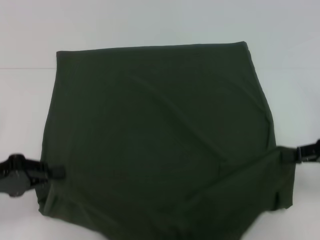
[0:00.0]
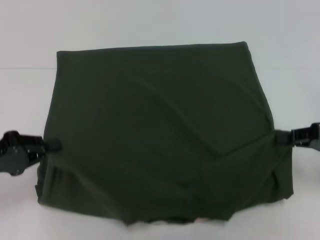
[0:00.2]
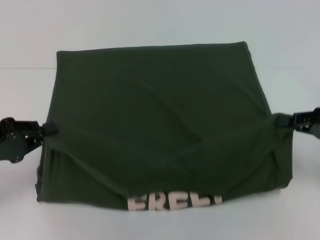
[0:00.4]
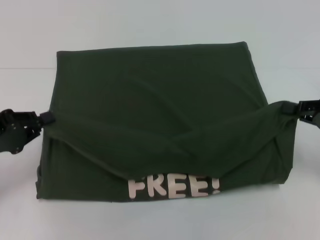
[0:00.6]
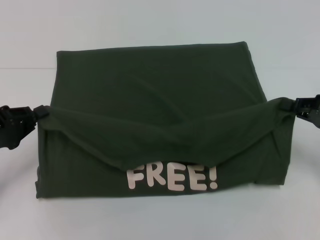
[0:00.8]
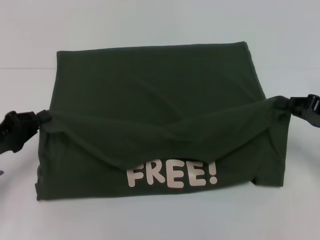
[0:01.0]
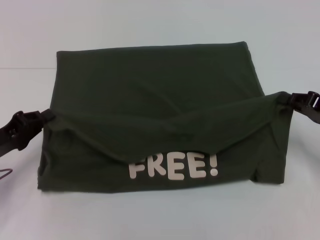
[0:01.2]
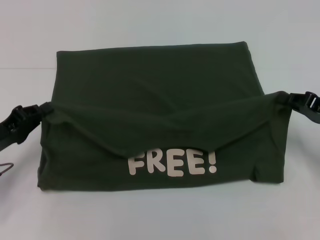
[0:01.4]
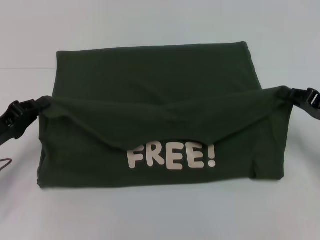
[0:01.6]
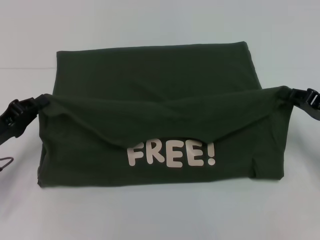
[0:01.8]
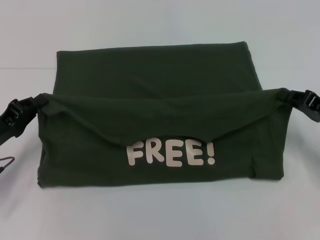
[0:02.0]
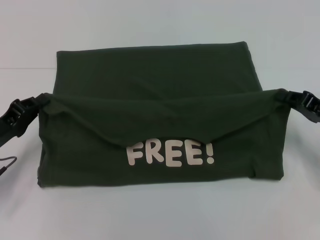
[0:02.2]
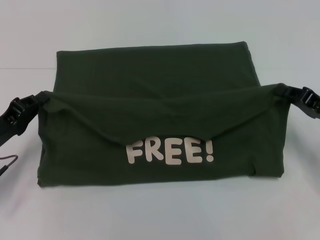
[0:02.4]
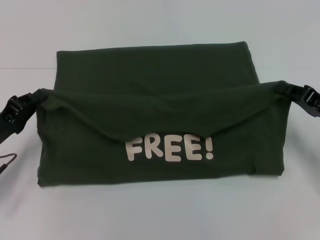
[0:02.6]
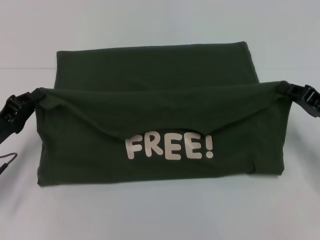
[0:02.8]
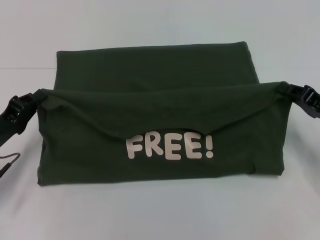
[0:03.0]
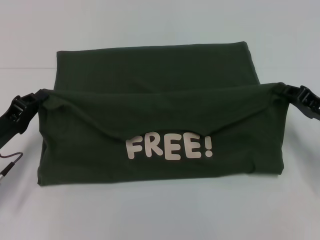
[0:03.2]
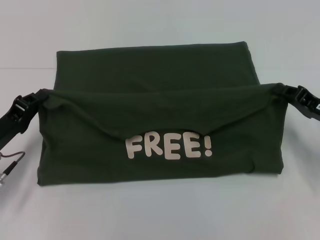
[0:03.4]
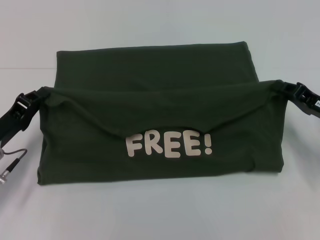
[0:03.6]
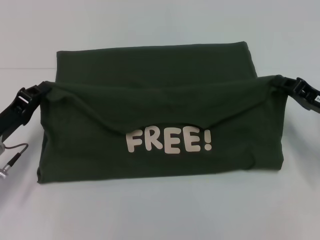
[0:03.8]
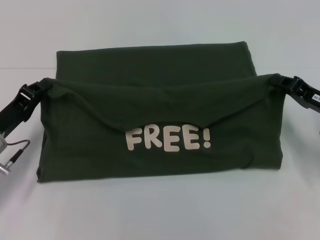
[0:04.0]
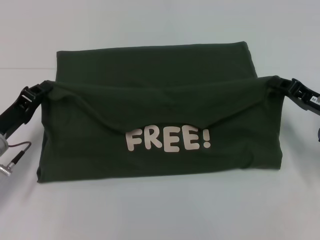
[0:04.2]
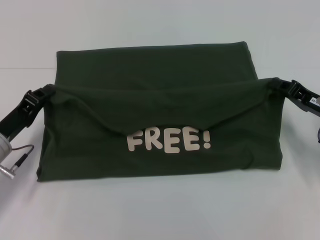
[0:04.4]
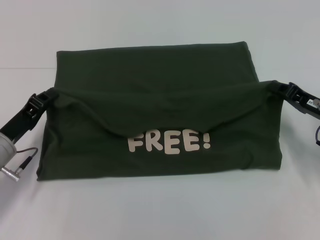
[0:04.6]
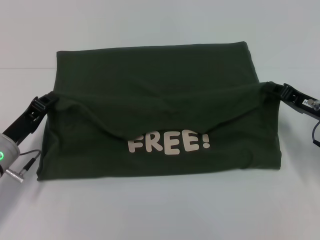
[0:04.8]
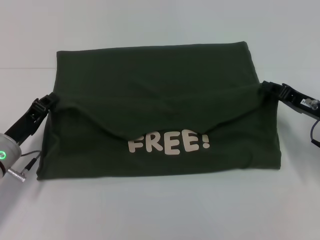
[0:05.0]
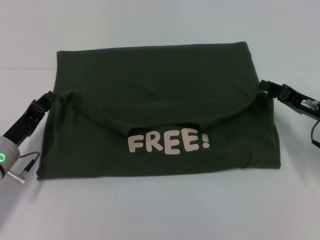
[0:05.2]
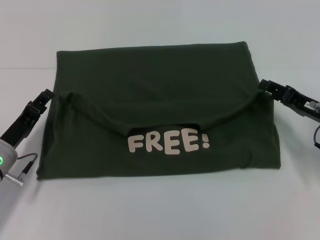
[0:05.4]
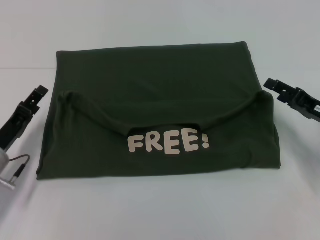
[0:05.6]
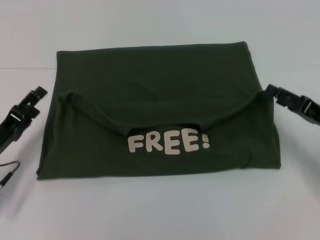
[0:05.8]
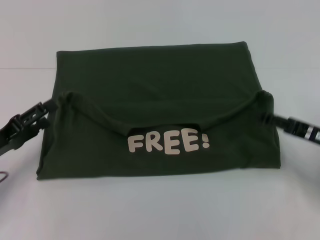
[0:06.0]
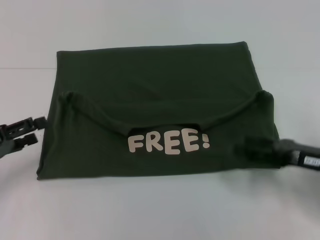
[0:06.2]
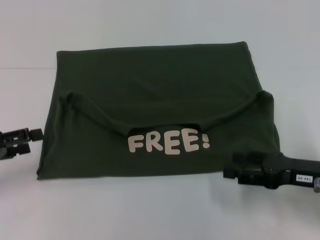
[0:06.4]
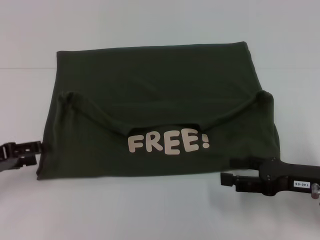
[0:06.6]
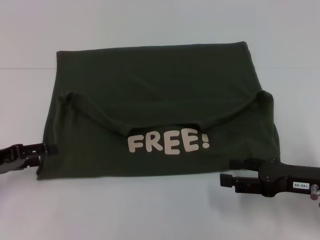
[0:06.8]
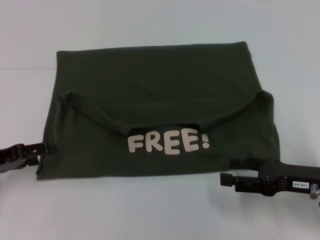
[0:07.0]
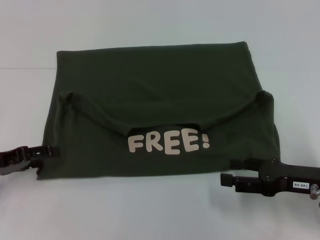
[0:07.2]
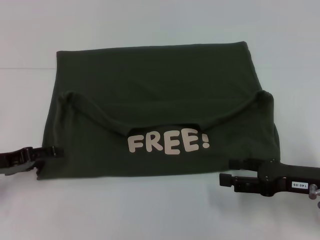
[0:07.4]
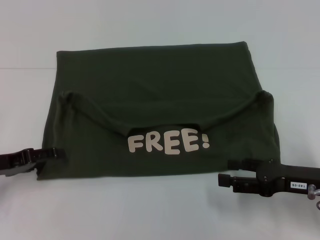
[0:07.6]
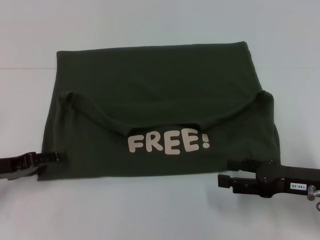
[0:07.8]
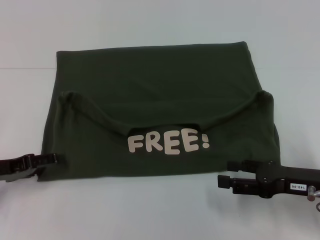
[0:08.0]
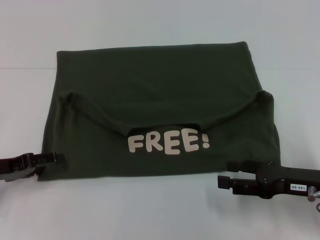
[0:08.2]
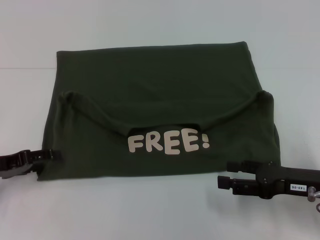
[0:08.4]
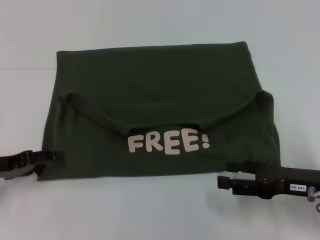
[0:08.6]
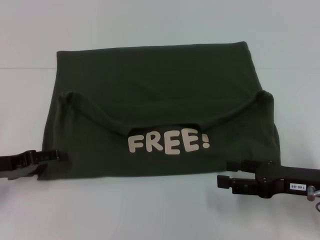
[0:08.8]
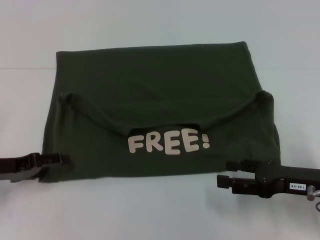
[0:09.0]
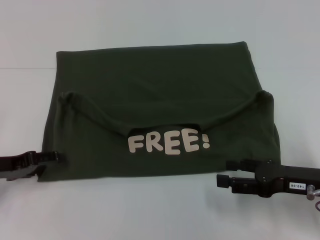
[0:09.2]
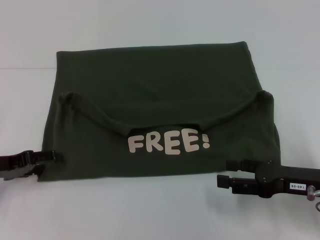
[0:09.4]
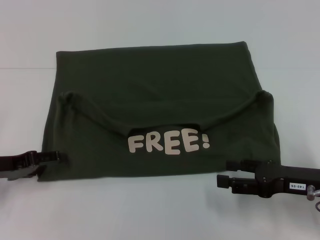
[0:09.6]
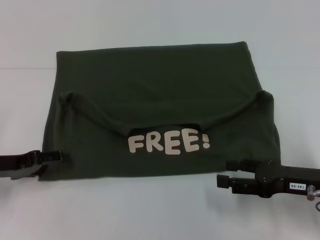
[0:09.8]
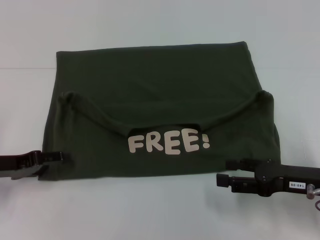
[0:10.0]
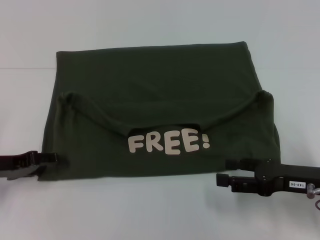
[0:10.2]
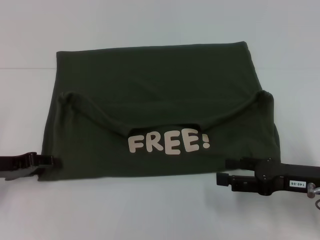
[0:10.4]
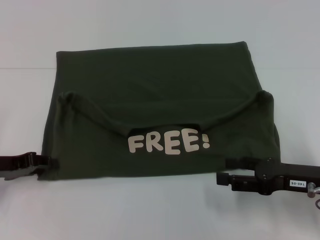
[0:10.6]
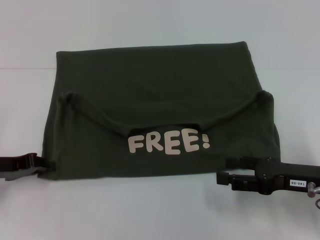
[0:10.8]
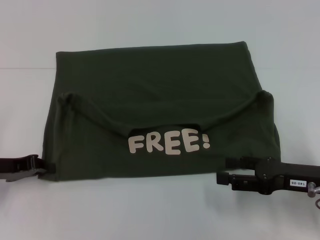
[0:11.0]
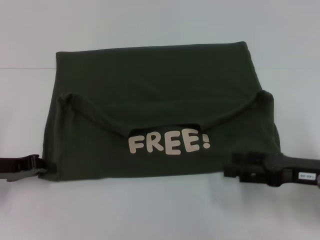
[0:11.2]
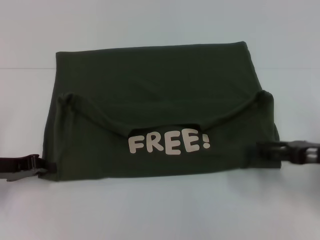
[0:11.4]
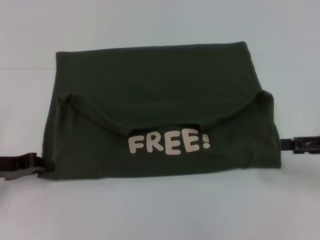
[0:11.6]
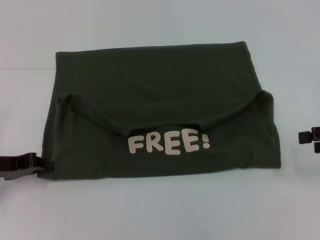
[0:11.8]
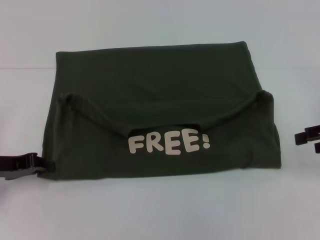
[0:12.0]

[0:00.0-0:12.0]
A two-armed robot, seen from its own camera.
Step, 0:00.0 to 0:05.2: Fold the clothes with your left hand.
Step, 0:00.0 to 0:05.2: Fold the clothes with your right hand.
0:00.0 to 0:01.6: The right gripper moves about 5 cm. The left gripper moves about 5 cm.
0:01.6 to 0:04.4: There are only small adjustments of the grippers.
0:04.4 to 0:06.0: The left gripper changes place by some 5 cm, and opens up. The right gripper opens up.
0:07.6 to 0:09.0: The grippers stay close to where they were, moving slightly.
0:09.0 to 0:10.4: The two grippers keep their place.
0:10.4 to 0:12.0: The right gripper shifts approximately 15 cm upward, to the right and forward.

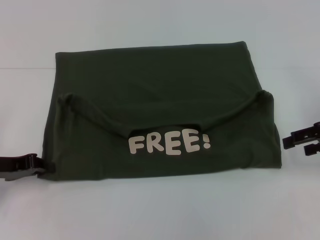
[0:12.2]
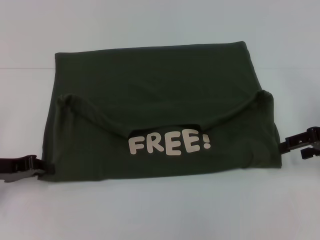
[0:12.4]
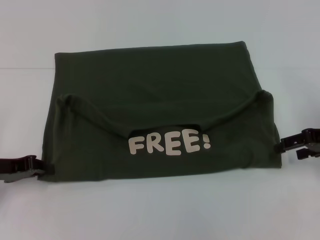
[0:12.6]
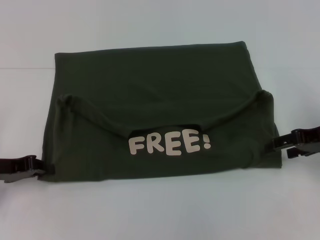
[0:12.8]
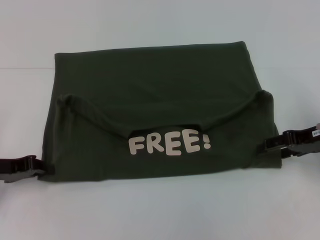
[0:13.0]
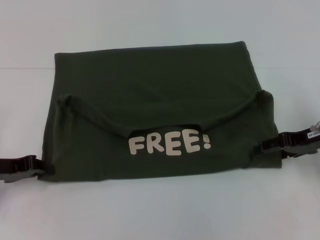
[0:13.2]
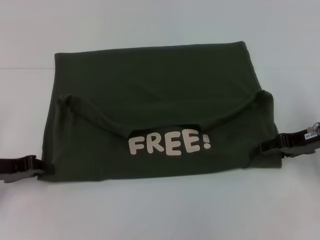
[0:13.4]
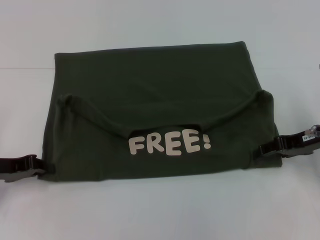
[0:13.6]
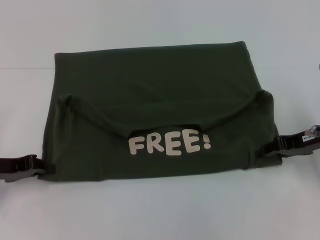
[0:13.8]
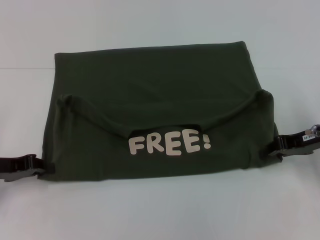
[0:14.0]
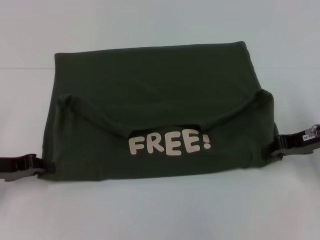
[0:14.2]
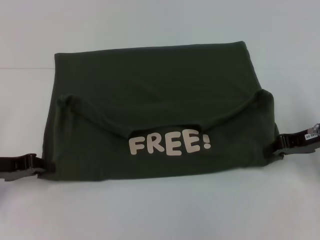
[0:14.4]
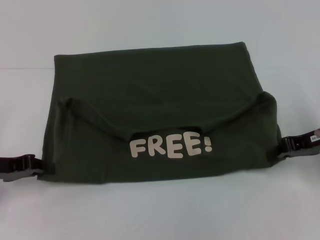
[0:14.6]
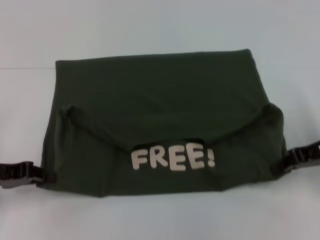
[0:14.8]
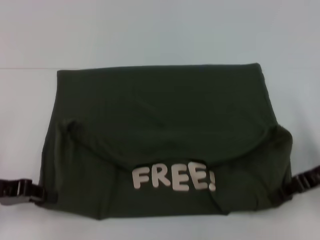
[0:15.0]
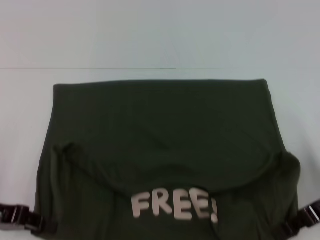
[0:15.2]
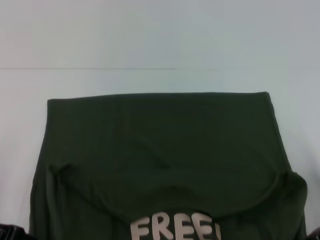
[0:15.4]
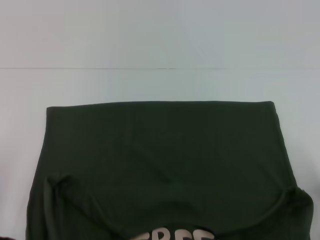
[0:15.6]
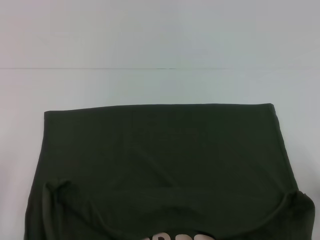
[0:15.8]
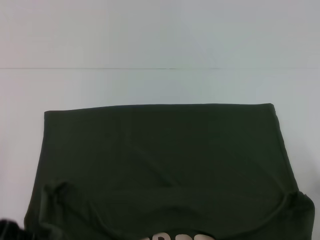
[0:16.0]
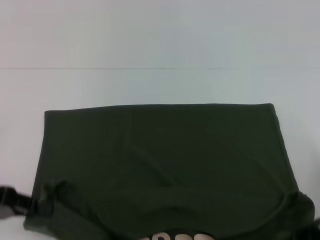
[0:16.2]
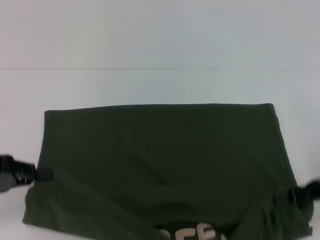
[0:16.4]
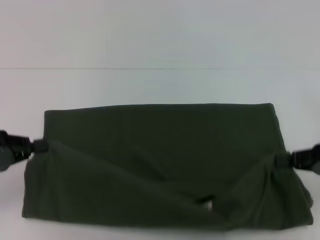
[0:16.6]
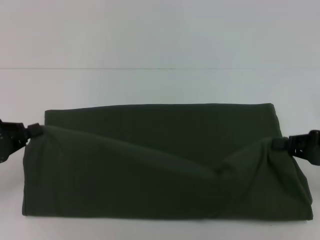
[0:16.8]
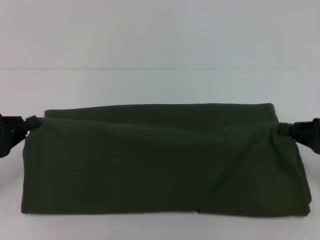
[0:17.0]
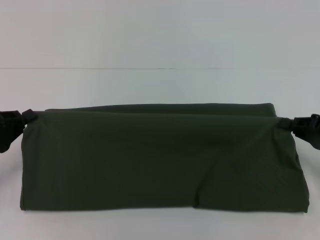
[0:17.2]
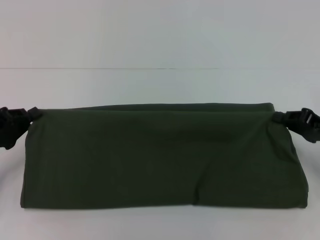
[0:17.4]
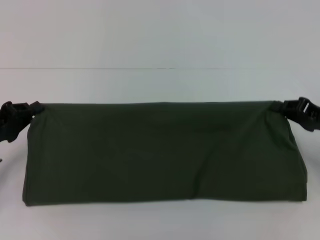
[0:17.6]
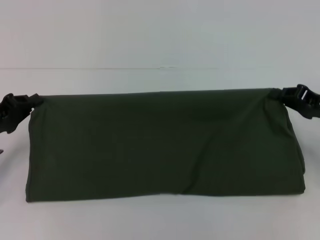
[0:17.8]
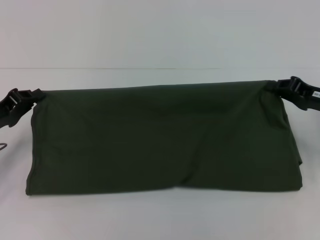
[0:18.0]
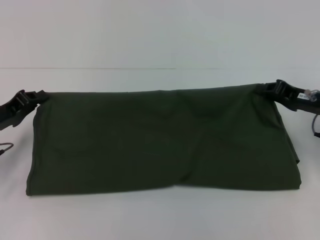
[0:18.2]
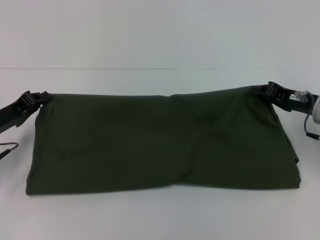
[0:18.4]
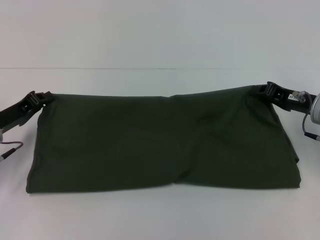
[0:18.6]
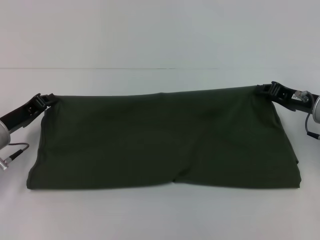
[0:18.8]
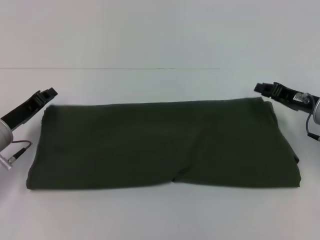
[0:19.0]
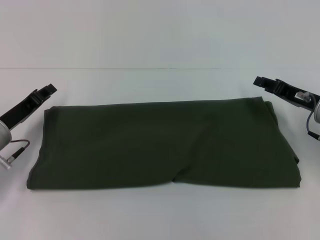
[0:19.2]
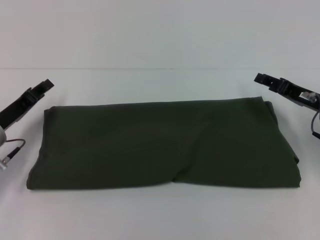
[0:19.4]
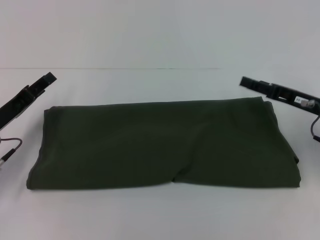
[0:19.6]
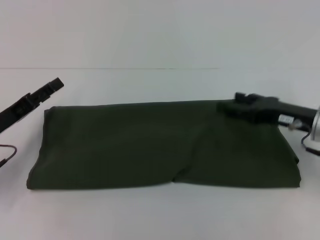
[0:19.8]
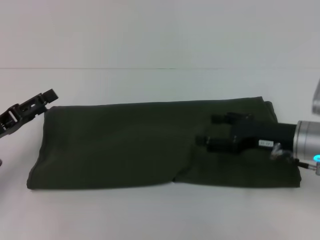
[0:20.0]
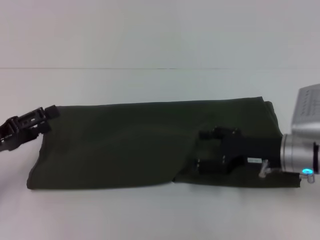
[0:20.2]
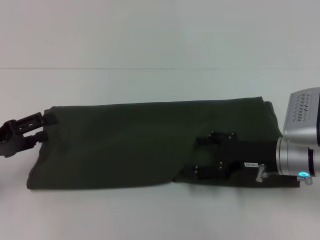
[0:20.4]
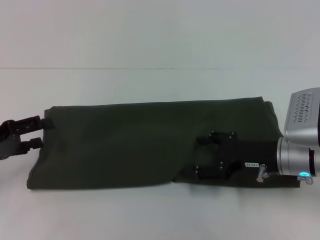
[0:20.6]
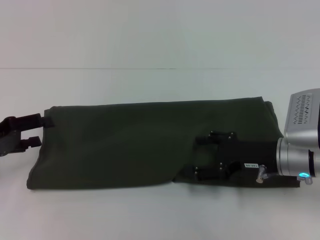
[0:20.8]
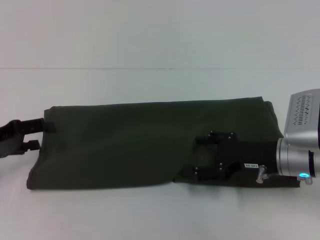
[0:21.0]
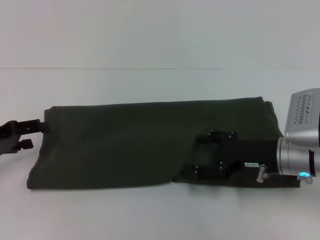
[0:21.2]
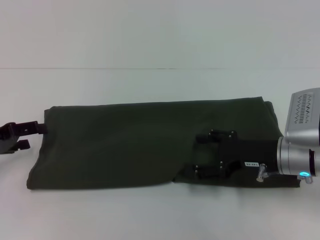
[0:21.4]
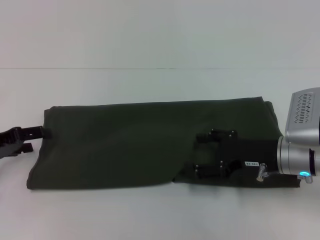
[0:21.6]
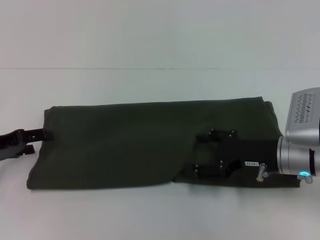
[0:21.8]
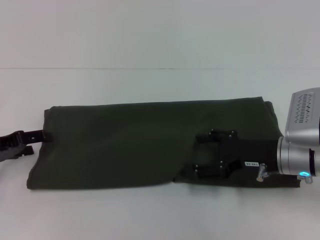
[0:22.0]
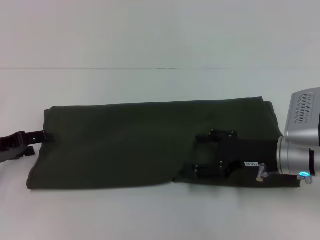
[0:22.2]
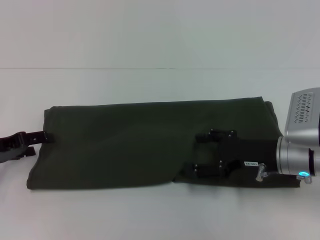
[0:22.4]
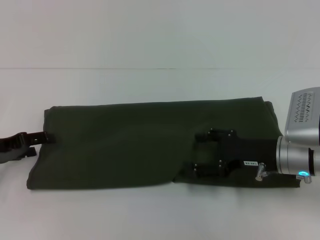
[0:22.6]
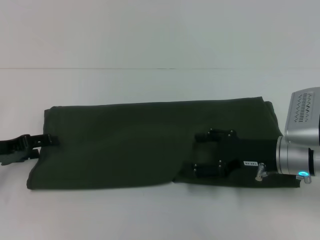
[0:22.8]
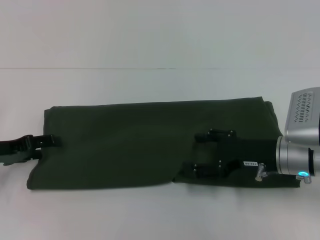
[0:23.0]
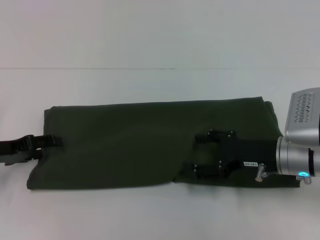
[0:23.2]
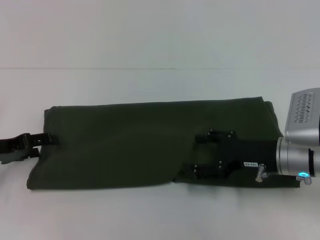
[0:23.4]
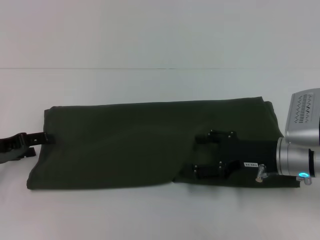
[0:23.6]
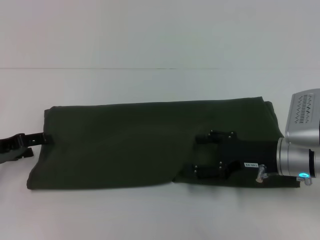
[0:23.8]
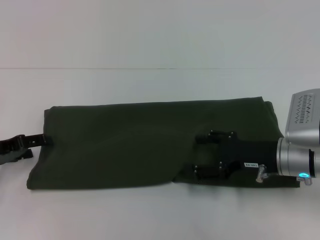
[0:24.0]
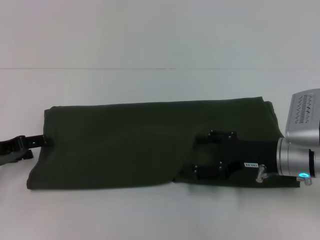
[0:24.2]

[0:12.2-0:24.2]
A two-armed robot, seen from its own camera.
Step, 0:12.2 to 0:15.6: Pull the clothes with your left hand.
Step, 0:12.2 to 0:15.6: Pull the clothes with your right hand.
Step, 0:15.8 to 0:19.0: Fold the clothes with your right hand.
0:12.2 to 0:13.8: The right gripper changes place by approximately 5 cm.
0:13.8 to 0:15.2: The right gripper shifts roughly 5 cm backward, and closes its fingers.
0:16.6 to 0:18.2: The left gripper moves forward, about 5 cm, while the right gripper travels forward and to the left by some 10 cm.
0:18.2 to 0:19.8: The right gripper opens up; the left gripper opens up.
0:19.8 to 0:21.2: The right gripper ends up approximately 5 cm from where it was, while the left gripper ends up approximately 5 cm from where it was.
0:21.2 to 0:22.6: The grippers move only a little.
0:22.6 to 0:24.2: Both grippers stay about where they are.
